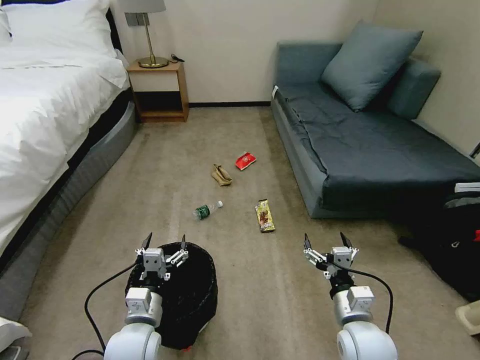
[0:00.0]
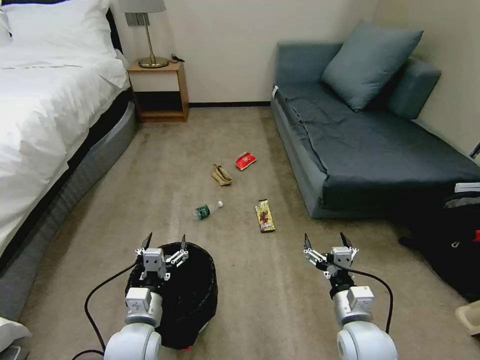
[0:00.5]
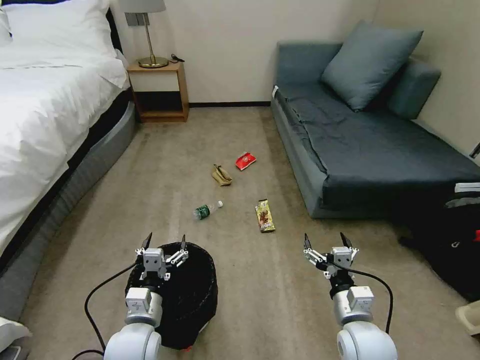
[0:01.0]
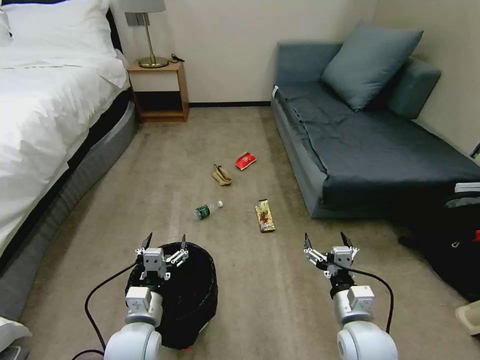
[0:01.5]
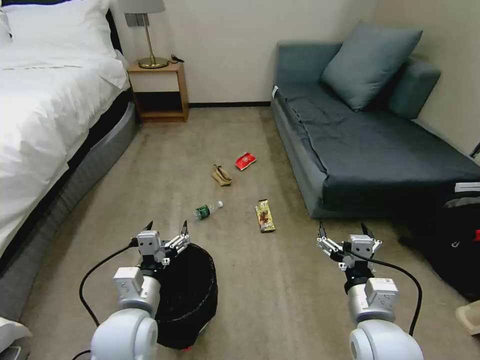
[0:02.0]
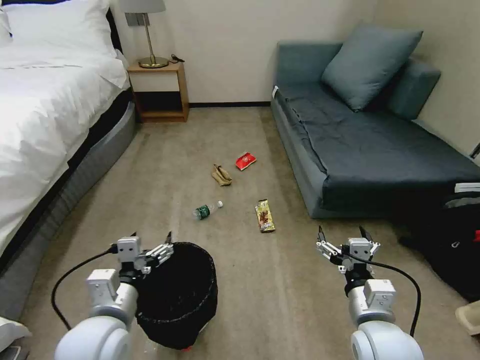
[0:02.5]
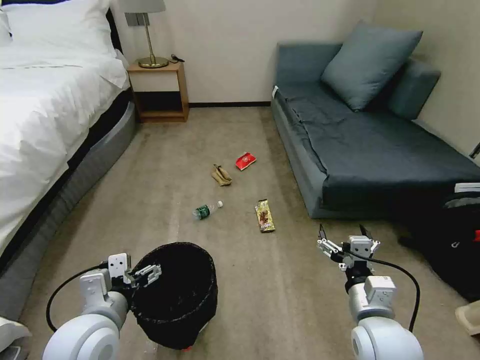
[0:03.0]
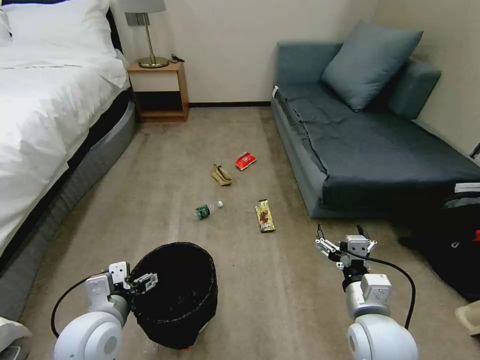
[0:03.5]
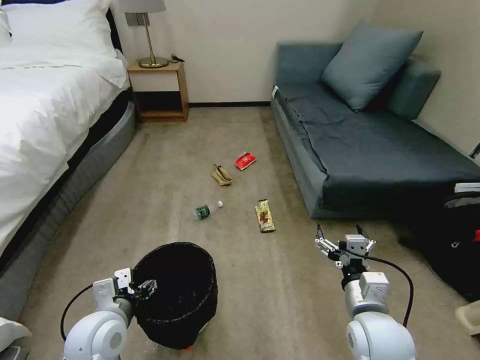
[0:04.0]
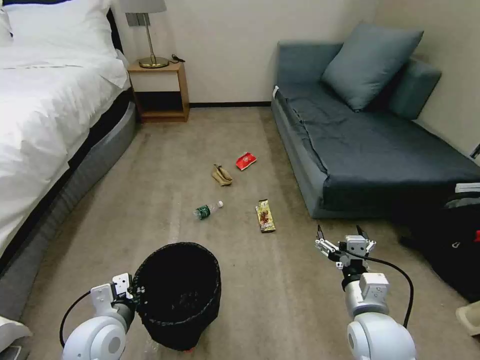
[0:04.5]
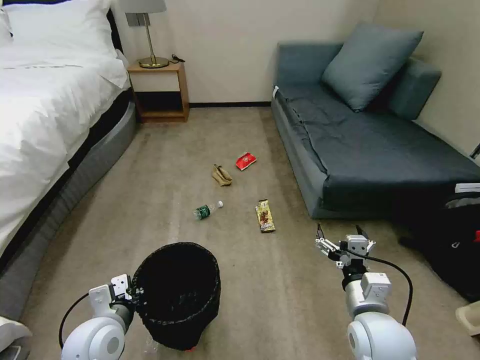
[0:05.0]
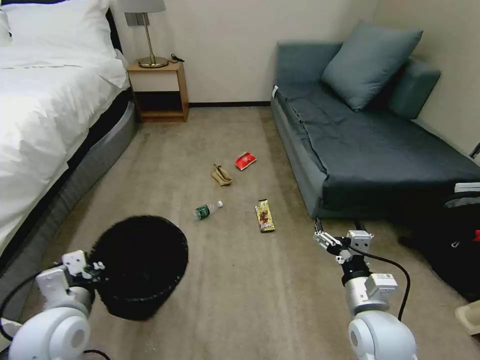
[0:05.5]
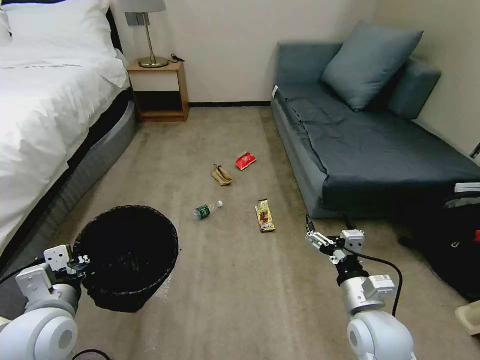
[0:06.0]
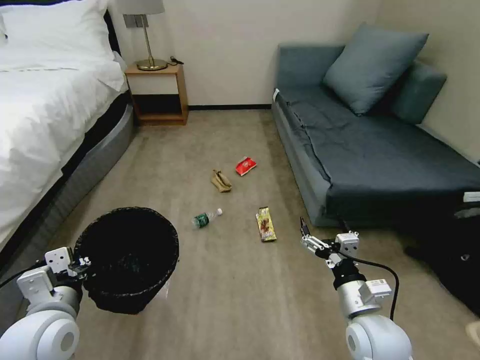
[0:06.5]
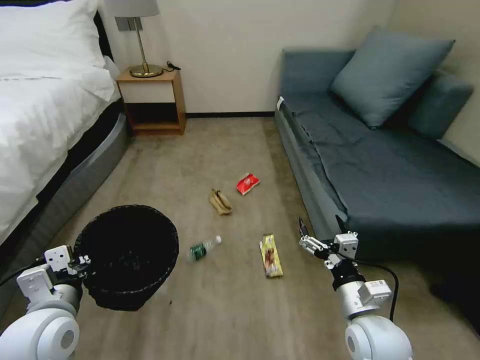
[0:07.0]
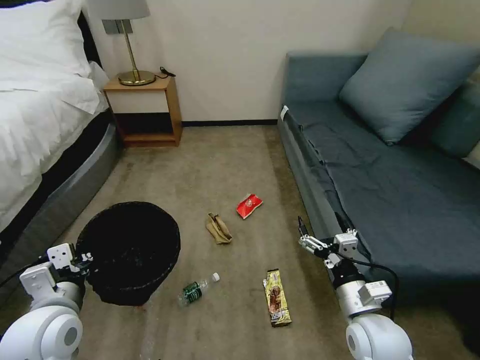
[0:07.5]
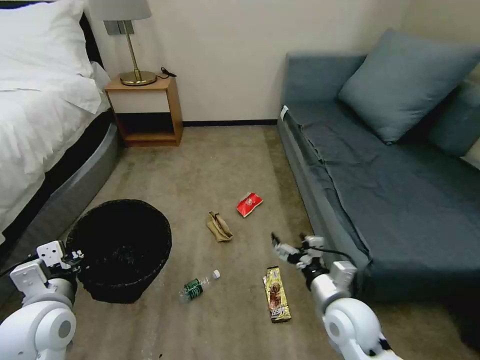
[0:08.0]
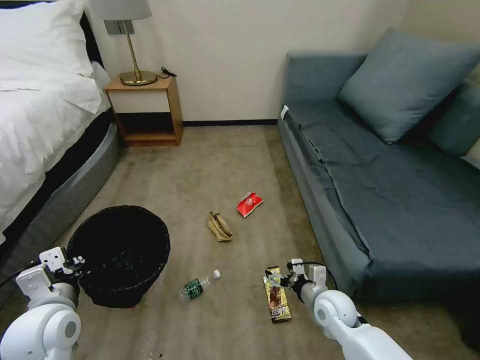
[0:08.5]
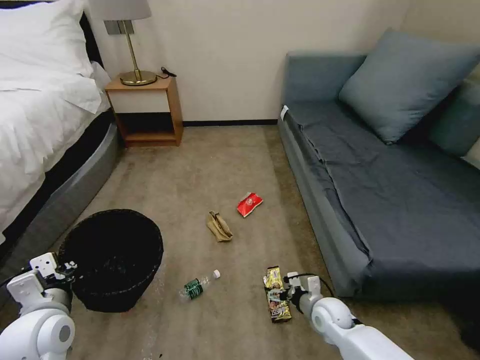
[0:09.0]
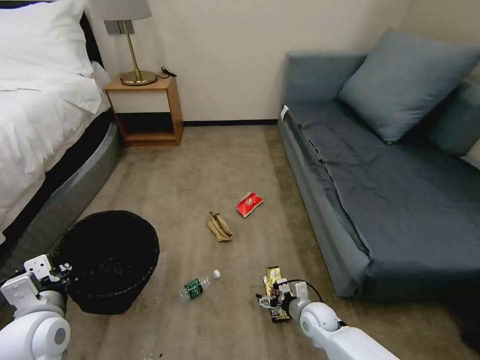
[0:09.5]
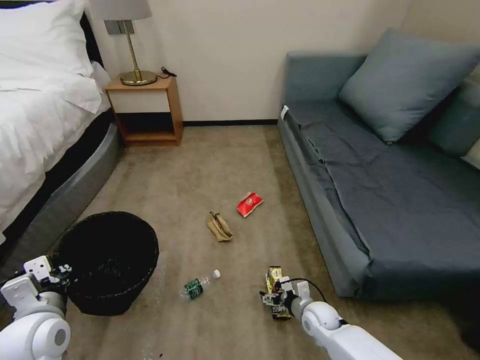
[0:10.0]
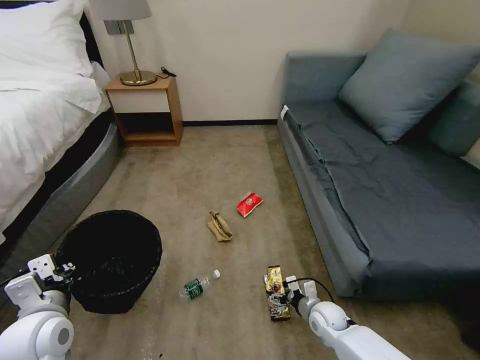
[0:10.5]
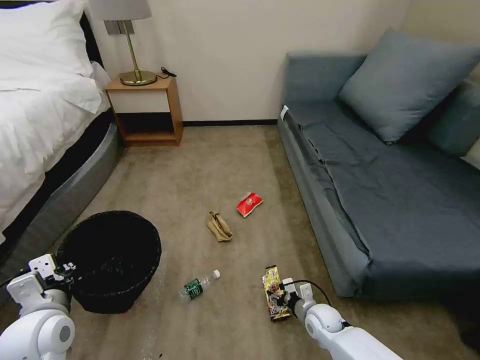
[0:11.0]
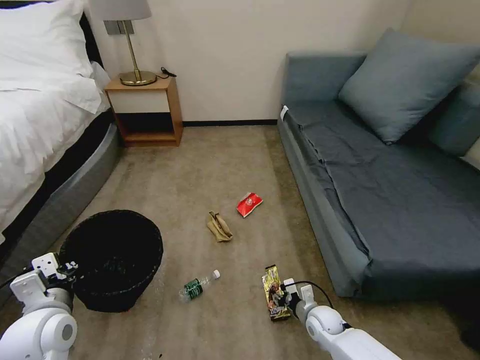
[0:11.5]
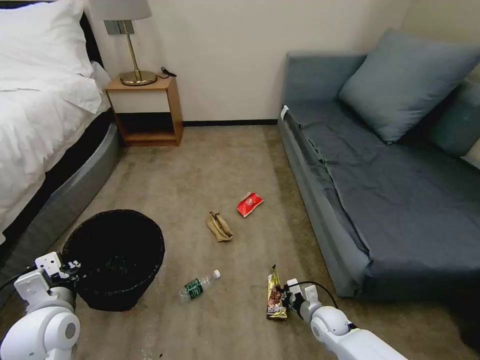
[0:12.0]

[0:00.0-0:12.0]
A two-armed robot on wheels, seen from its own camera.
Task of the whole recording: Pick up the trash bin, then pick up the garbage on the floor and place it into the trash bin.
0:02.0 to 0:04.0: The left gripper travels to the left by about 5 cm.
0:04.0 to 0:06.0: The left gripper shifts about 10 cm upward and to the left, and closes up.
0:08.0 to 0:10.0: The right gripper moves downward, roughly 20 cm.
0:10.0 to 0:12.0: The right gripper closes up.

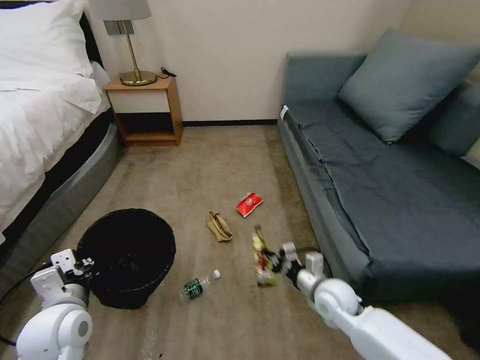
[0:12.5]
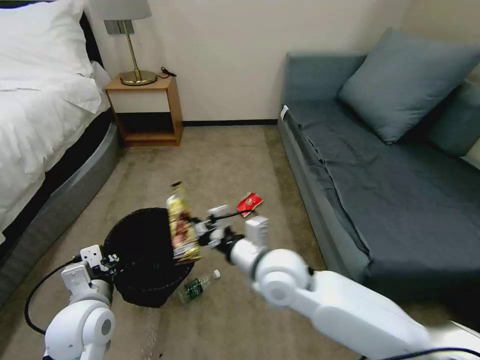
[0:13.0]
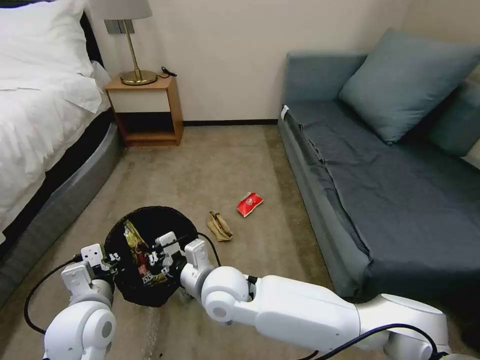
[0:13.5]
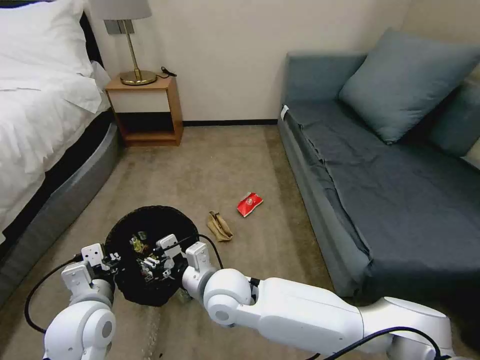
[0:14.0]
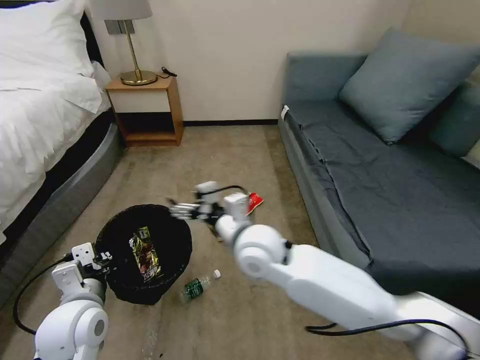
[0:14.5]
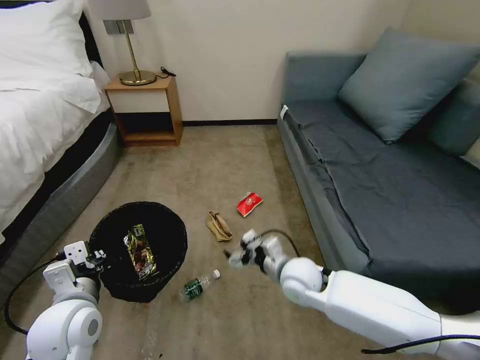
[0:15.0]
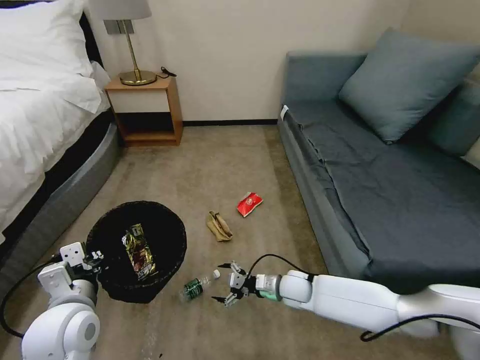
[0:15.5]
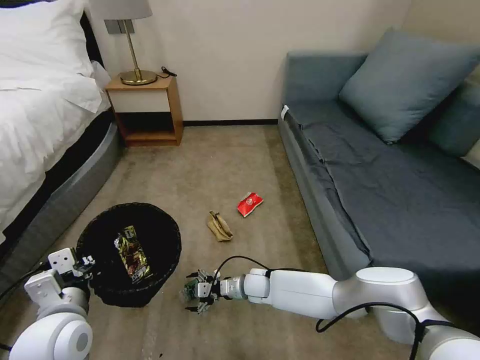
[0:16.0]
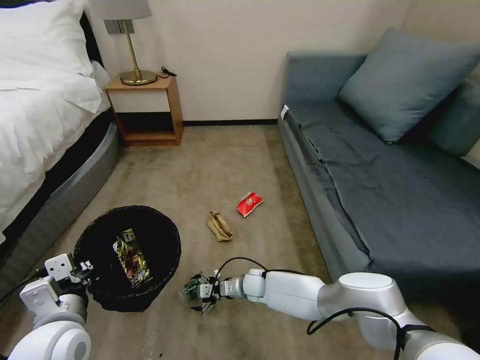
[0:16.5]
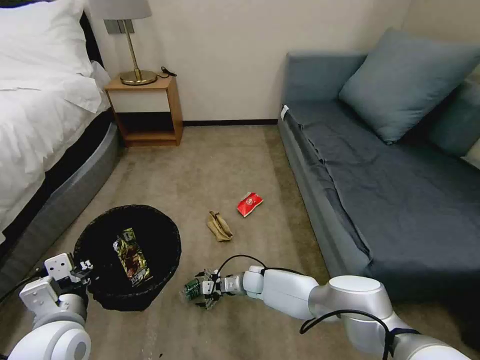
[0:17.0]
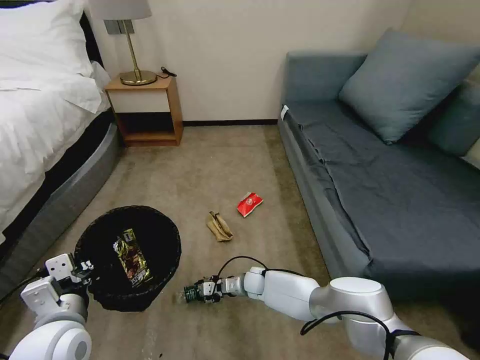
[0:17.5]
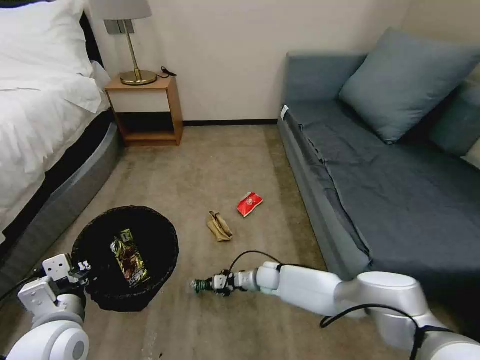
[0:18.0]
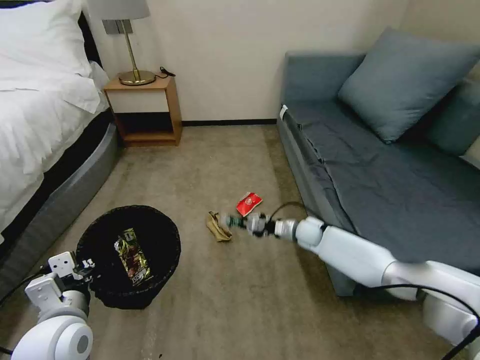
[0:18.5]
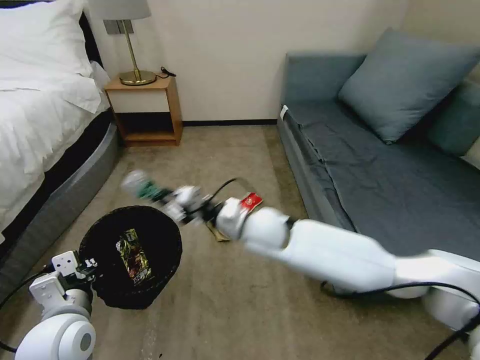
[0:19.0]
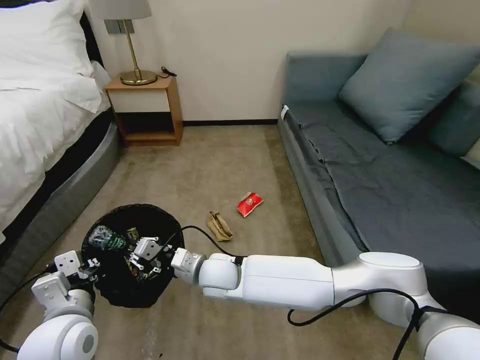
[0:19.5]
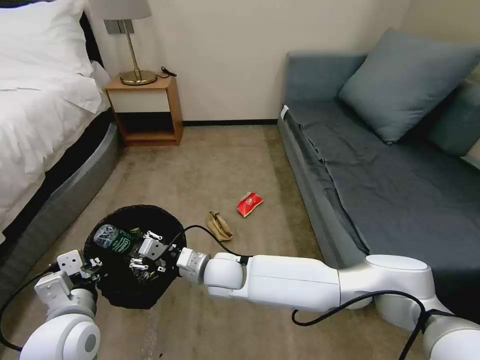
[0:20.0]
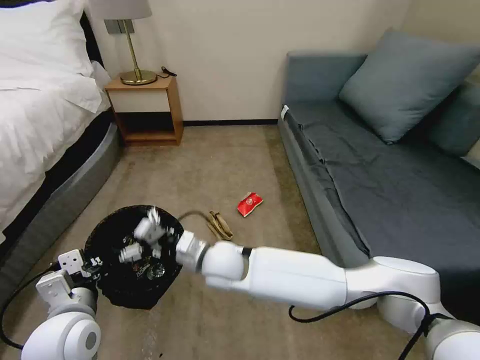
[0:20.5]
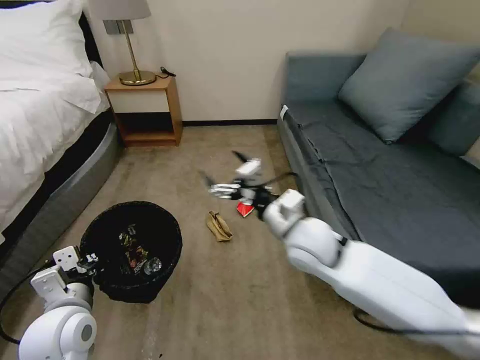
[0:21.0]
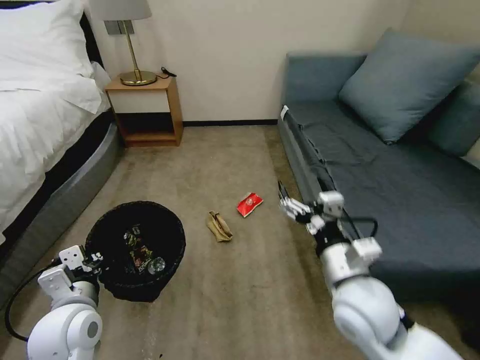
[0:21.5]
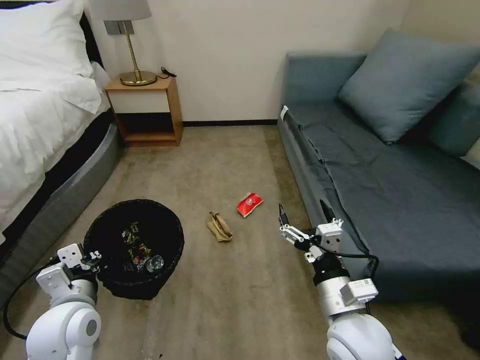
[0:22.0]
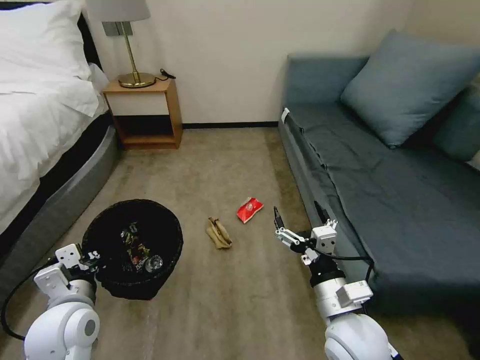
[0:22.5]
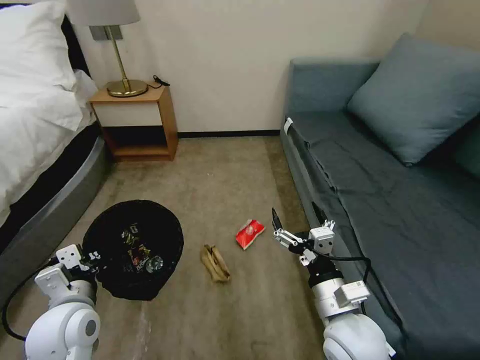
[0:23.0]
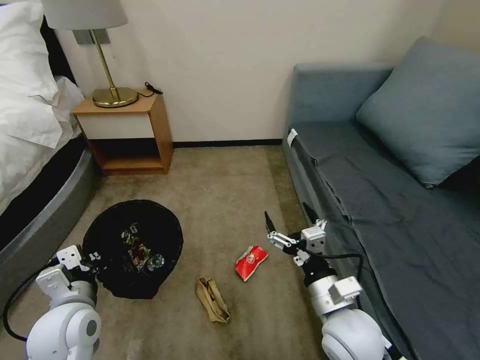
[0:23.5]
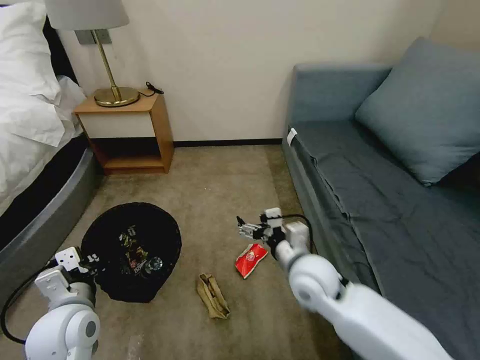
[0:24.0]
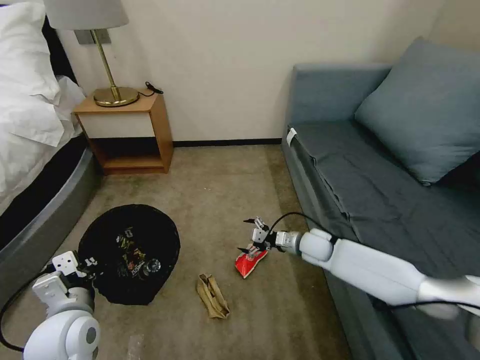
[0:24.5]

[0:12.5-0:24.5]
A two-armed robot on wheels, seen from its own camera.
Task of the whole recording: Pick up the trash bin, then pick up the garbage on the floor and place it into the trash bin.
0:12.5 to 0:14.5: The right gripper goes approximately 30 cm to the left and upward, and opens.
0:14.5 to 0:16.5: The right gripper travels downward by approximately 30 cm.
0:16.5 to 0:18.5: The right gripper moves to the right, upward and forward, about 25 cm, and closes its fingers.
0:18.5 to 0:20.5: The right gripper travels to the left, backward and upward by about 35 cm, and opens up.
0:20.5 to 0:22.5: The right gripper heads to the right and backward, covering approximately 30 cm.
0:22.5 to 0:24.5: The right gripper moves forward and downward, roughly 30 cm.

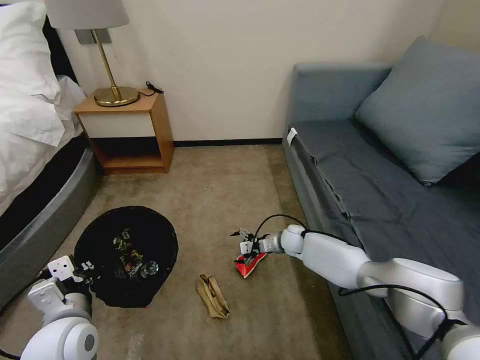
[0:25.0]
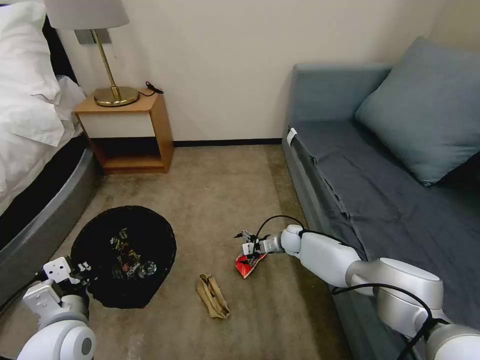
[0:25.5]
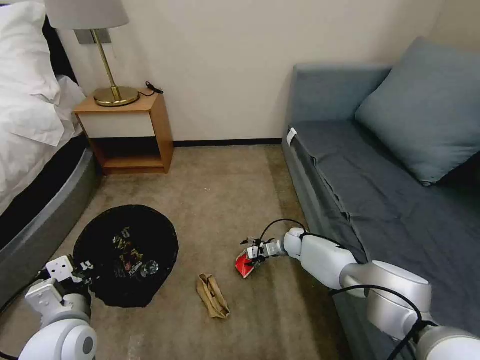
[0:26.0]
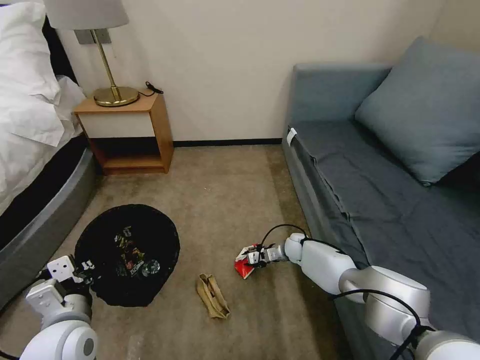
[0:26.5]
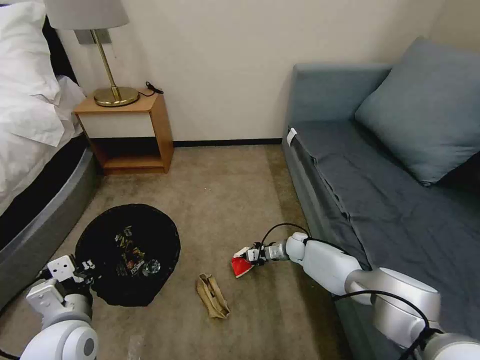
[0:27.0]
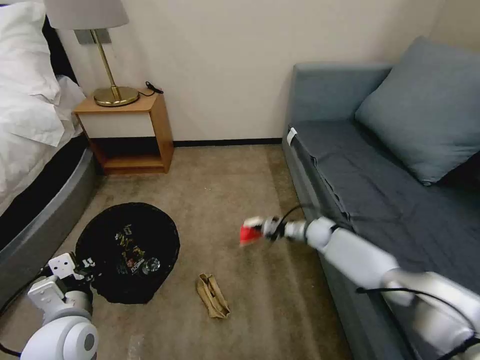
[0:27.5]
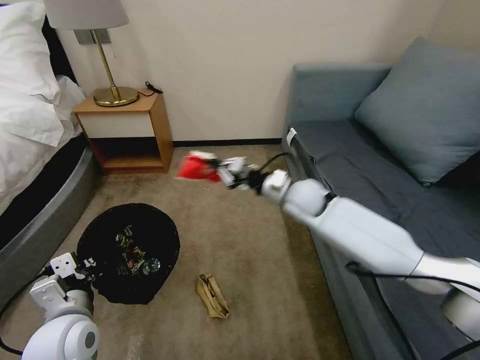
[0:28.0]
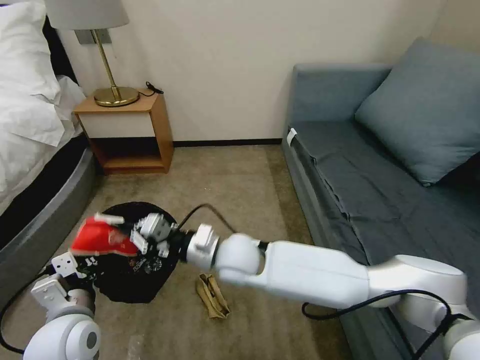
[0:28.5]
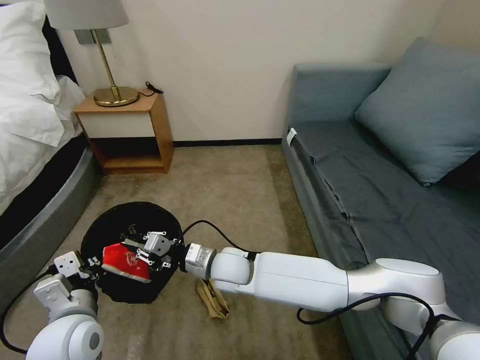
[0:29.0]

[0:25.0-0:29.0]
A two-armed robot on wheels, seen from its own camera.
Task of the whole recording: Pick up the trash bin, then pick up the garbage on the floor and place it into the trash bin.
0:25.0 to 0:27.0: The right gripper changes place by approximately 5 cm, and closes up.
0:27.0 to 0:29.0: The right gripper moves to the left, upward and backward, about 35 cm.
